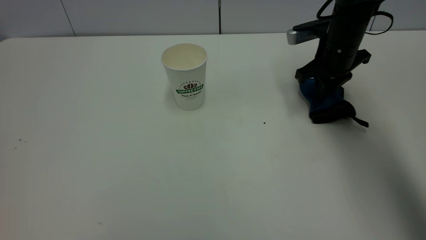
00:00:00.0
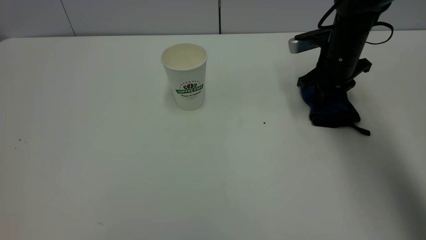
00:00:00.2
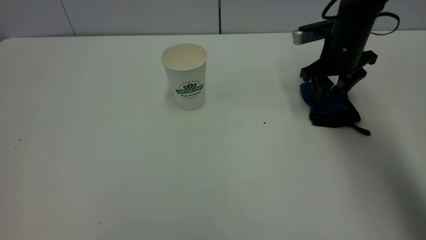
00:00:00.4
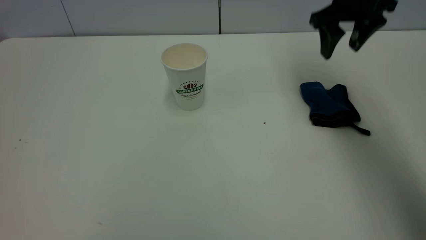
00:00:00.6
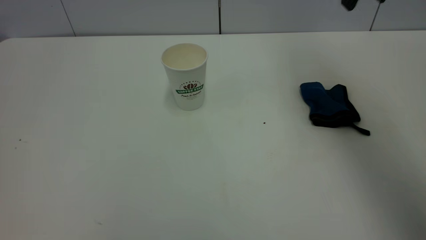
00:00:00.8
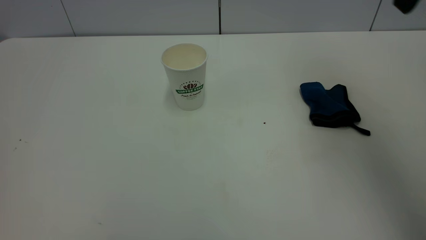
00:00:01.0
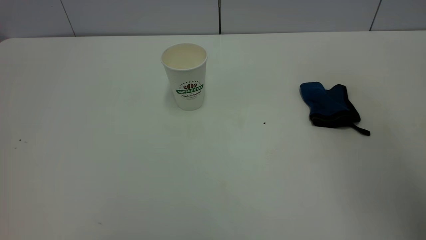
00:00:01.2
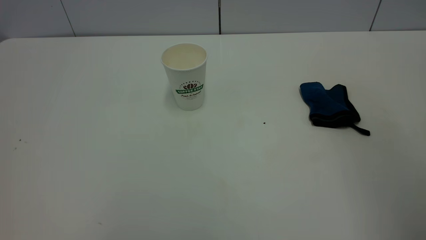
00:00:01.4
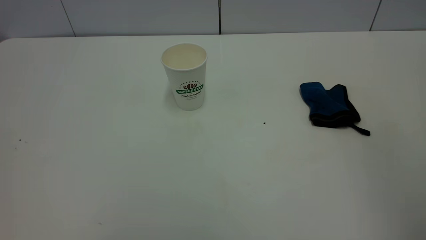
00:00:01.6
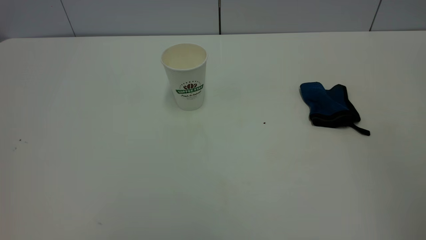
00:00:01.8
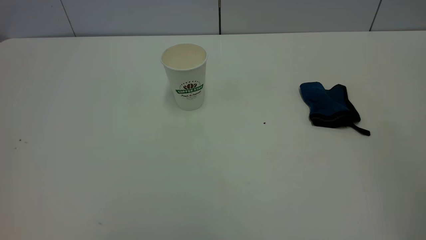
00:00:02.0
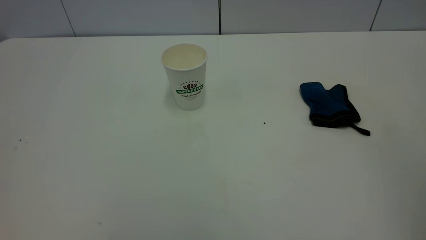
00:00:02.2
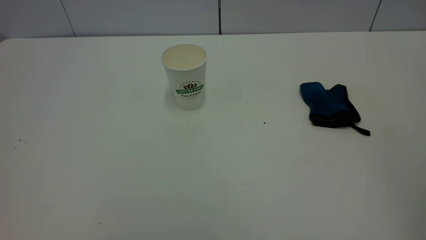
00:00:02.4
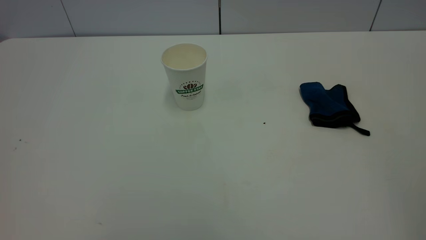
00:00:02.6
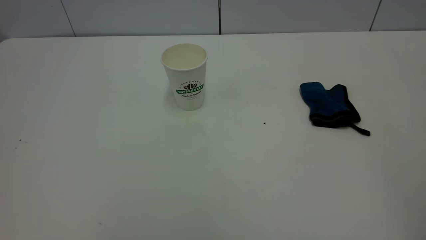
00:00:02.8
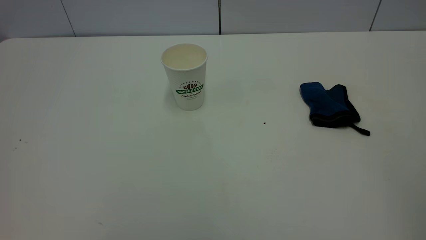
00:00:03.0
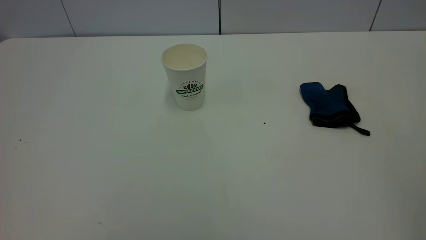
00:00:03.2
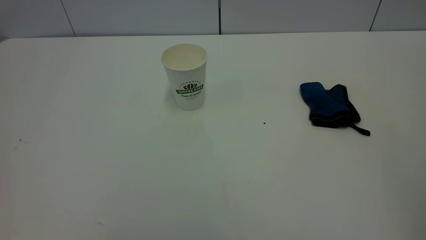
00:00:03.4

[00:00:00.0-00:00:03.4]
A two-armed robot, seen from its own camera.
Task of the whole recording: the left gripper pick up the fallen cup and place it upright, the right gripper grasp the blue rag and wipe the tea stain on the table, the right gripper put the blue rag back in its original position.
00:00:00.0 to 00:00:01.6: The right gripper shifts about 40 cm backward and upward, and opens up.
